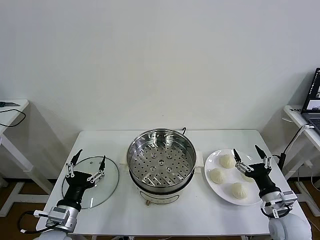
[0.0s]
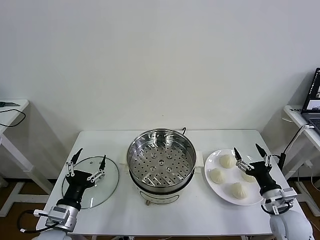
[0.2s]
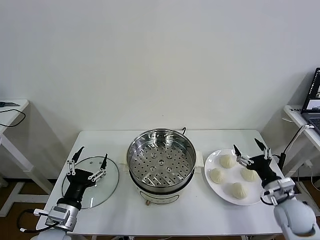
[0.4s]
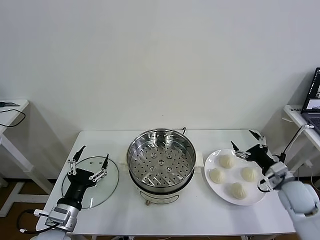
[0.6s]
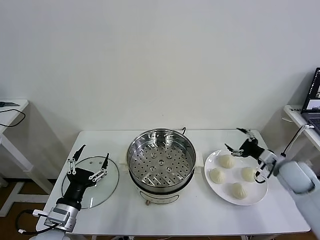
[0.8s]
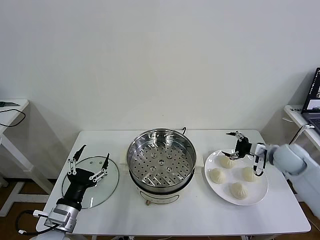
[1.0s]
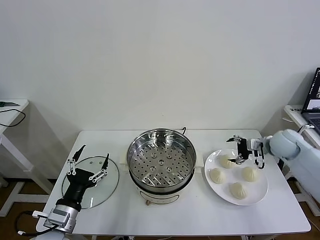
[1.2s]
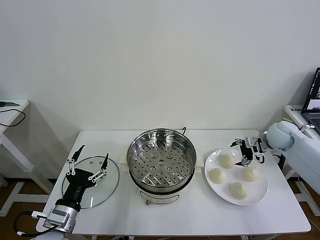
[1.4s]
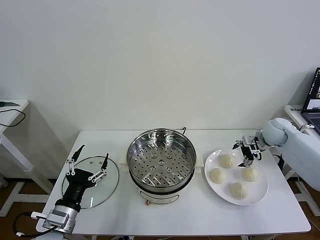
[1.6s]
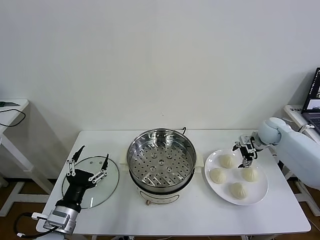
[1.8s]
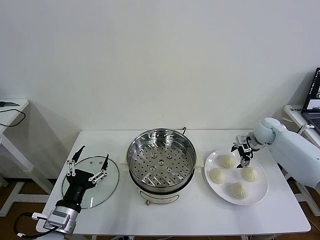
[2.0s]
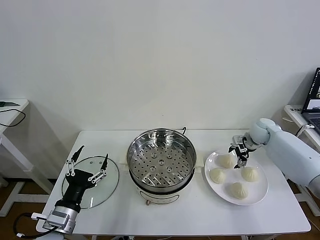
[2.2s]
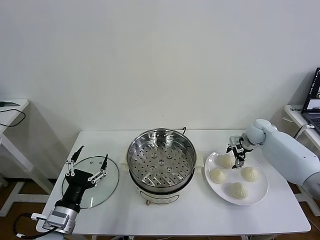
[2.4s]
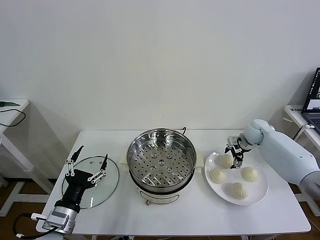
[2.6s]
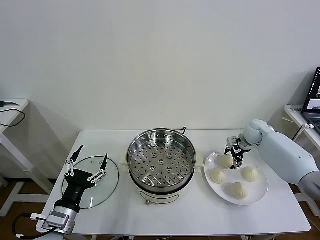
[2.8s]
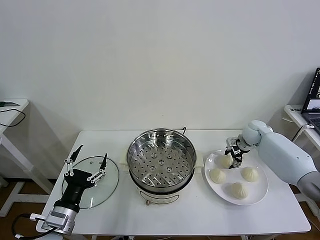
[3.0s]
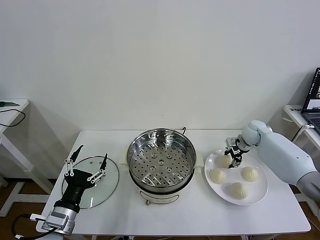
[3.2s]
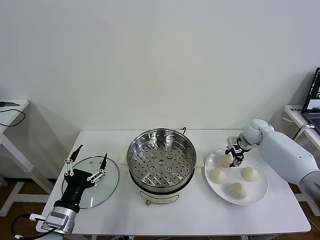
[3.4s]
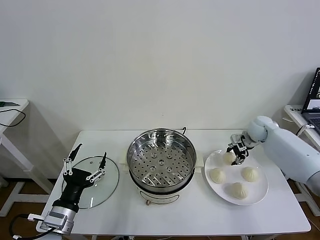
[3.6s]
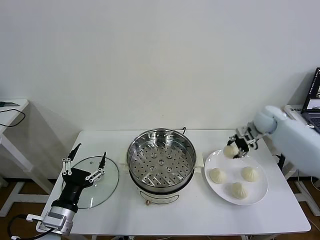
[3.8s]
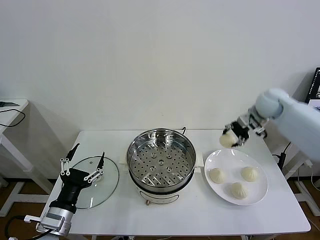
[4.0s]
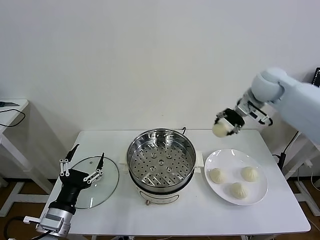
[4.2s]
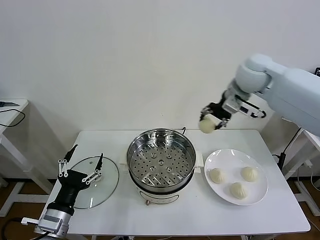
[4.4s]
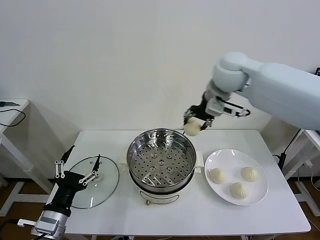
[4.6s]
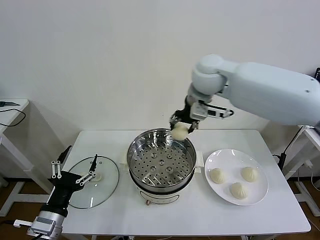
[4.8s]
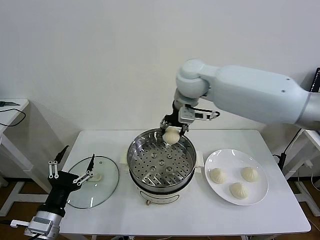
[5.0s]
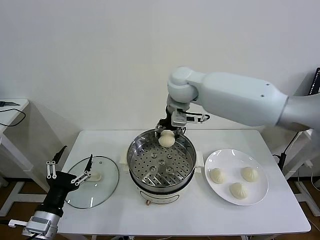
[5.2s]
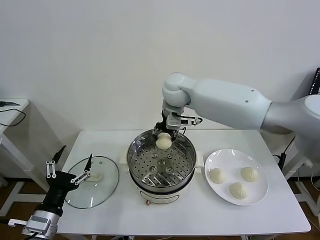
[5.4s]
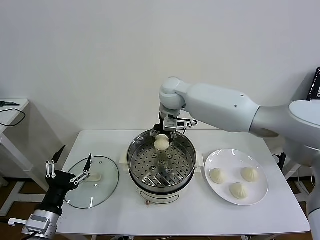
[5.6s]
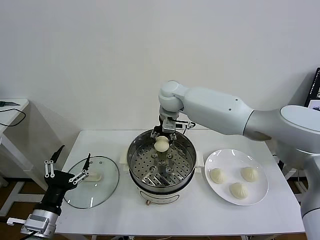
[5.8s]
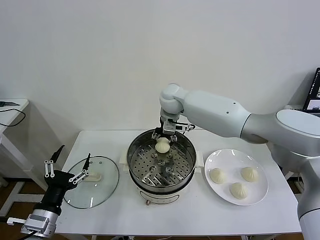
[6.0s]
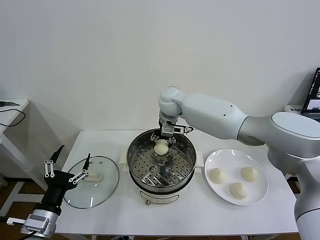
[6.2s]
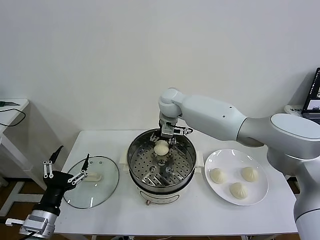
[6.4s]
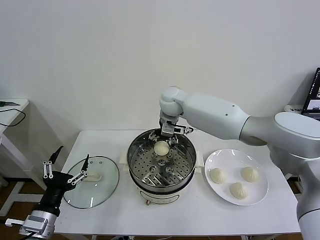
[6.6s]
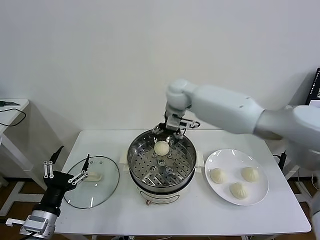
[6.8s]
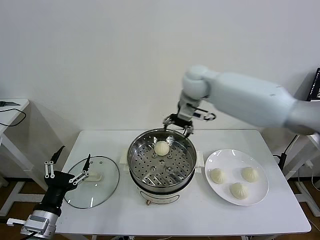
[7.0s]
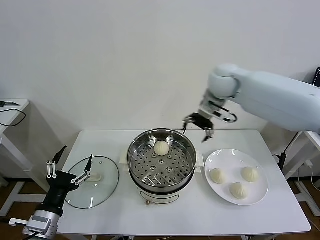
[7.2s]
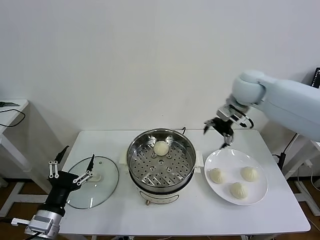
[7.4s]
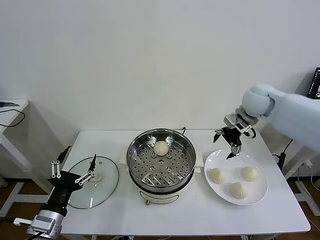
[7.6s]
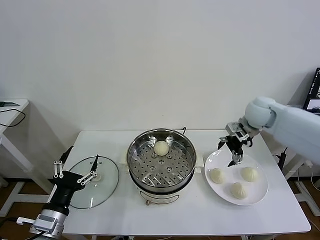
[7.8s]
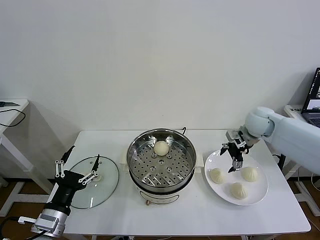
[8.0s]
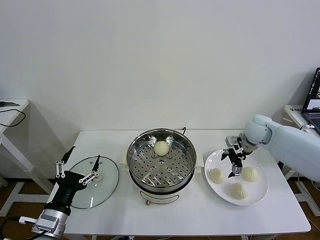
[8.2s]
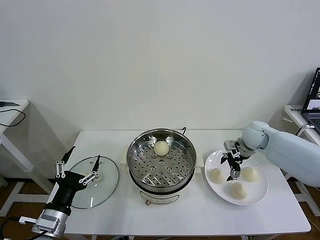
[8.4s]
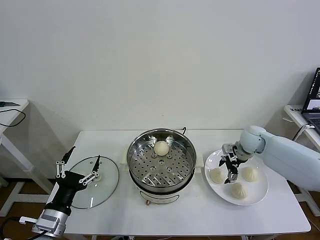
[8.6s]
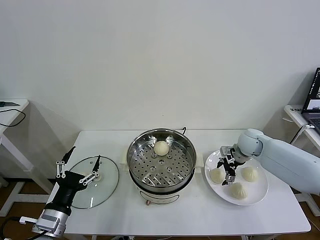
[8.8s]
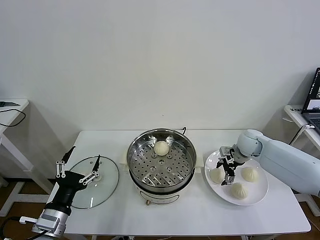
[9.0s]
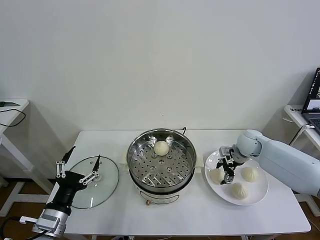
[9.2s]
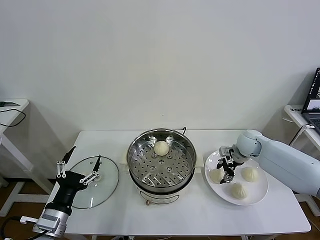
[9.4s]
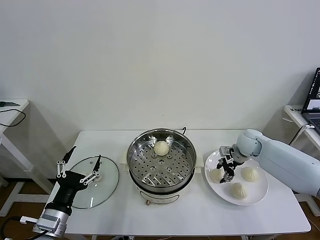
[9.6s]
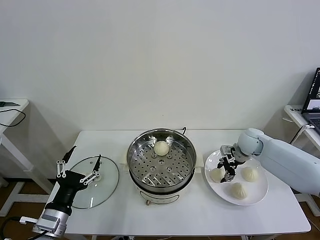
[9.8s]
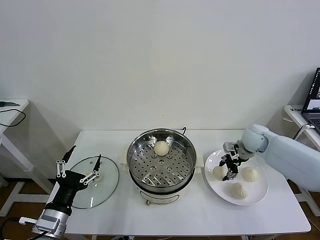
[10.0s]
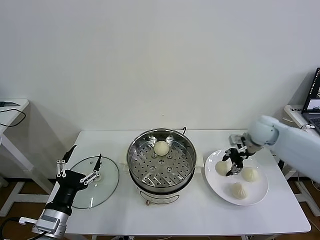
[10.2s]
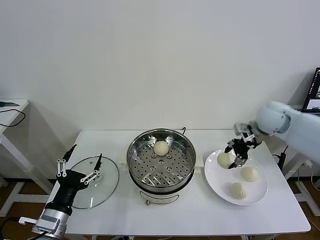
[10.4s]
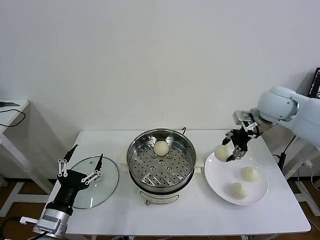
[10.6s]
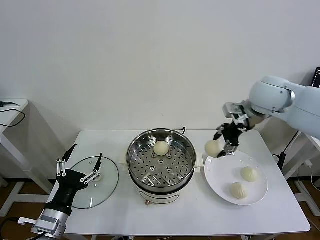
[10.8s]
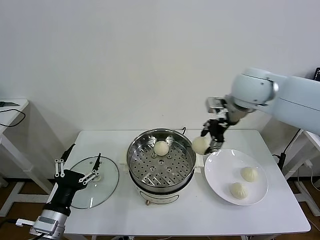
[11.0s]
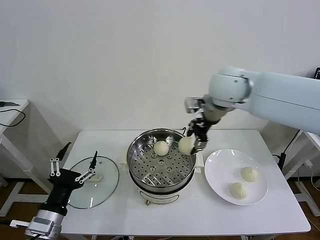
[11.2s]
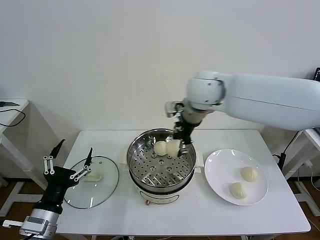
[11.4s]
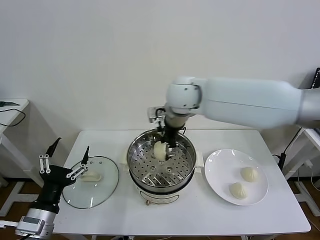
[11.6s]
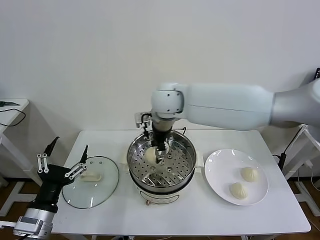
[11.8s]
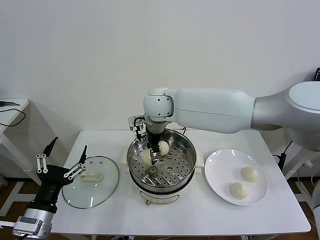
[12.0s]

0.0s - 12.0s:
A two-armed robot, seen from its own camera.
Task of the whole recording: take steamed baozi put them in steamer then cover it.
Step, 0.0s - 3.0s: Grasp the baozi in the plate with right gripper.
Step, 3.2s - 6.4s: Place the baozi on the steamer with right gripper.
Step, 6.8s - 9.6s: Grasp the baozi in the plate with right gripper.
1.6s - 3.0s: The right gripper shifts approximately 5 cm downward, and closes.
3.0s - 4.4s: The right gripper goes some 35 cm upward and to the left.
4.4s - 6.0s: The right gripper shifts about 20 cm to the left and downward.
6.0s - 7.6s: The right gripper travels to the right by approximately 25 cm, and opens.
7.6s - 9.0s: The right gripper moves downward, approximately 15 cm.
9.0s - 10.4s: The right gripper goes some 15 cm upward, and closes its fingers.
10.4s - 12.0s: The right gripper goes about 35 cm to the left.

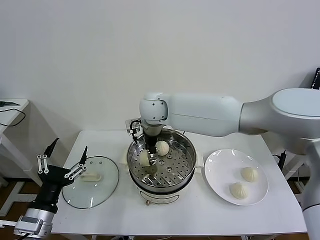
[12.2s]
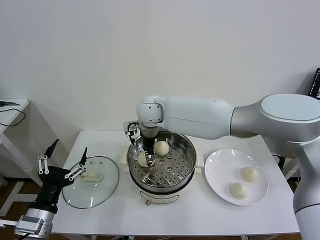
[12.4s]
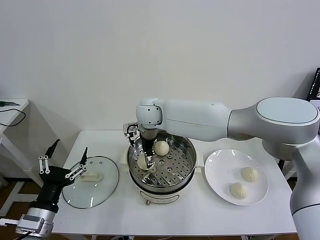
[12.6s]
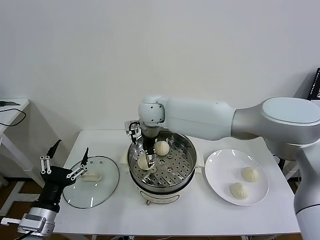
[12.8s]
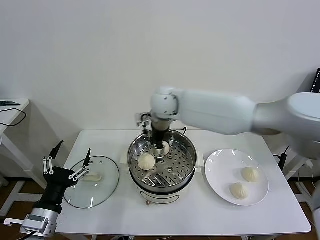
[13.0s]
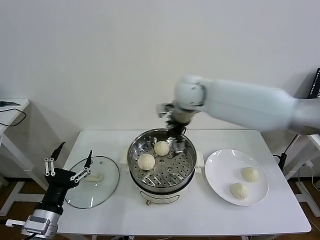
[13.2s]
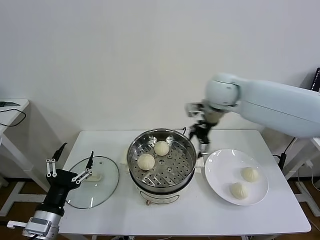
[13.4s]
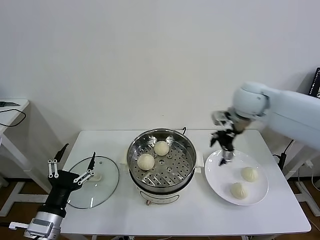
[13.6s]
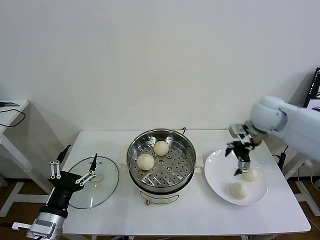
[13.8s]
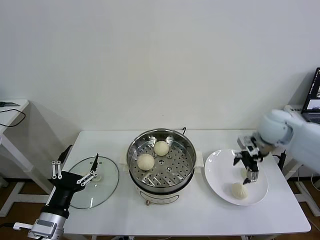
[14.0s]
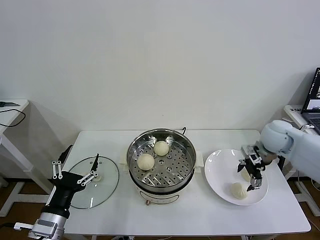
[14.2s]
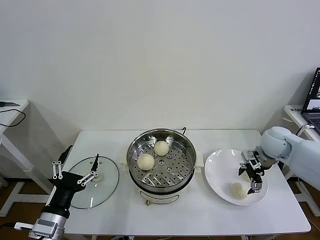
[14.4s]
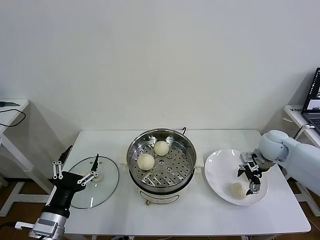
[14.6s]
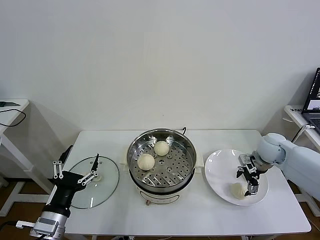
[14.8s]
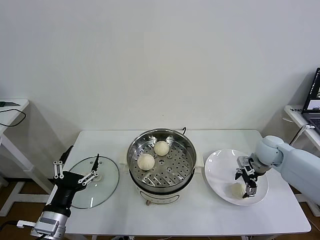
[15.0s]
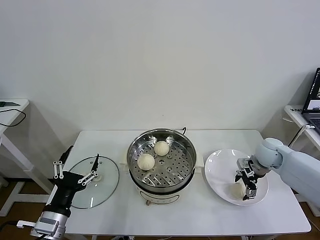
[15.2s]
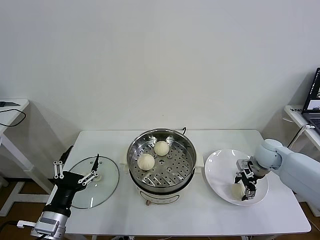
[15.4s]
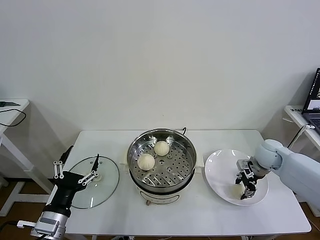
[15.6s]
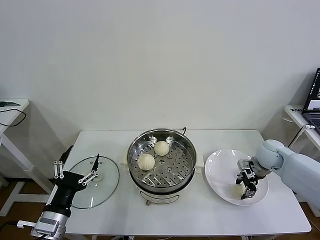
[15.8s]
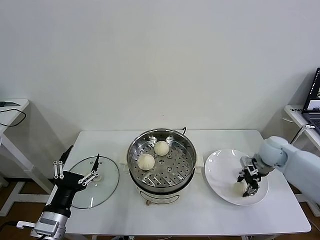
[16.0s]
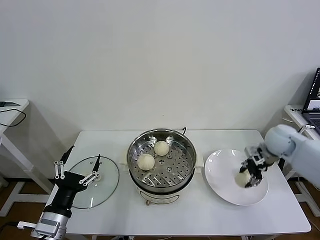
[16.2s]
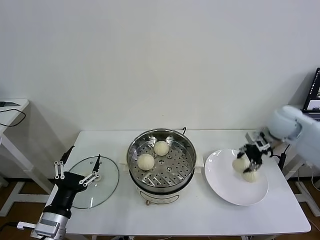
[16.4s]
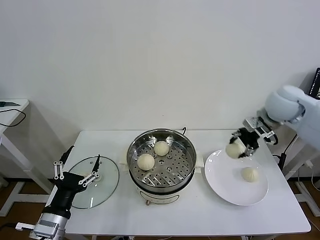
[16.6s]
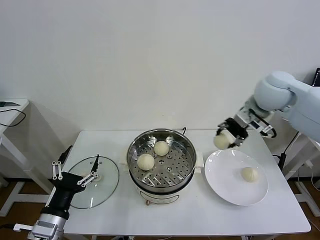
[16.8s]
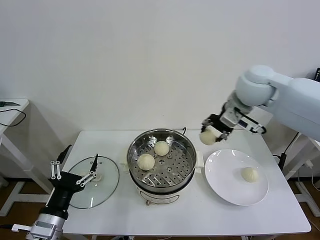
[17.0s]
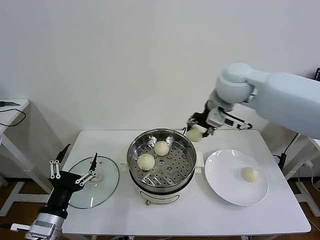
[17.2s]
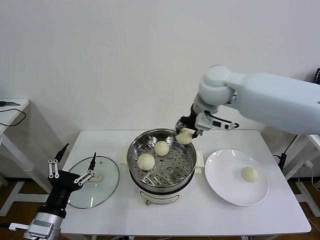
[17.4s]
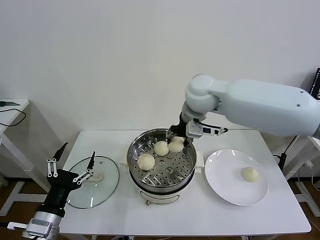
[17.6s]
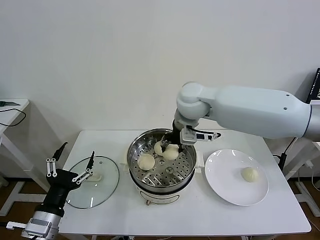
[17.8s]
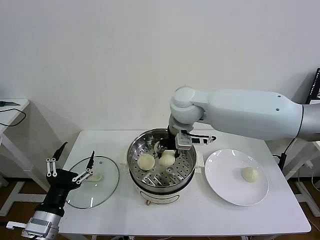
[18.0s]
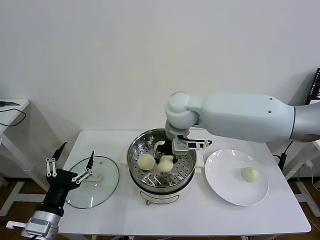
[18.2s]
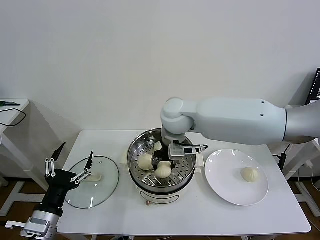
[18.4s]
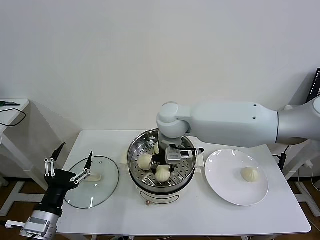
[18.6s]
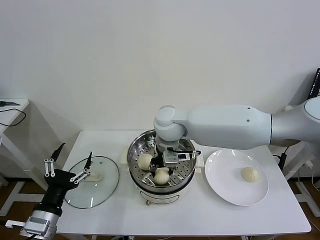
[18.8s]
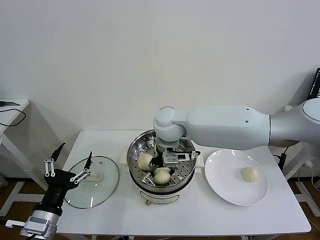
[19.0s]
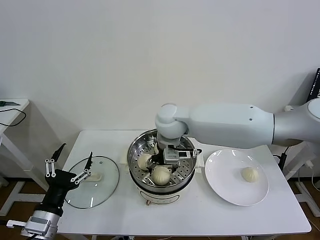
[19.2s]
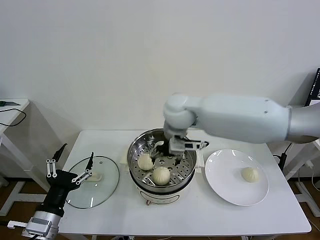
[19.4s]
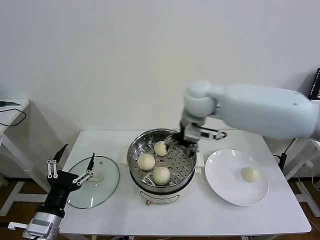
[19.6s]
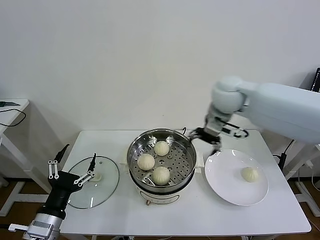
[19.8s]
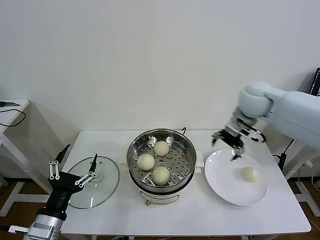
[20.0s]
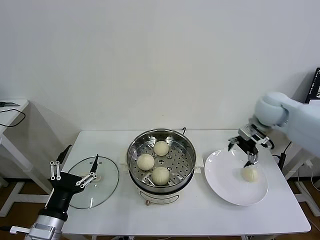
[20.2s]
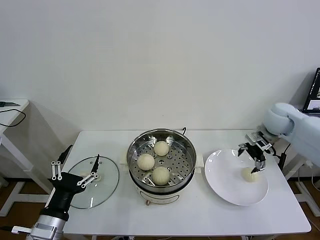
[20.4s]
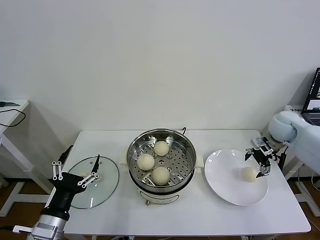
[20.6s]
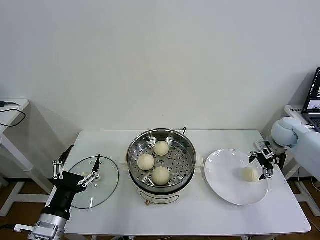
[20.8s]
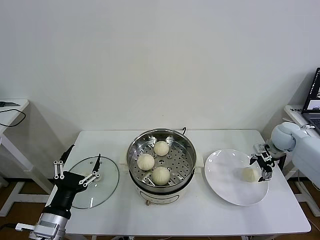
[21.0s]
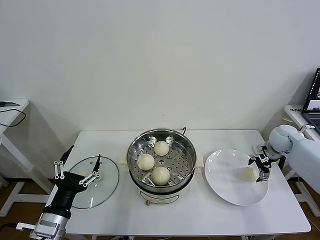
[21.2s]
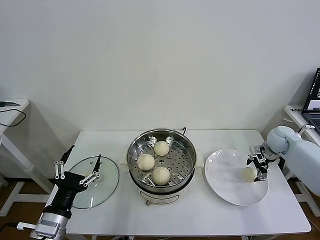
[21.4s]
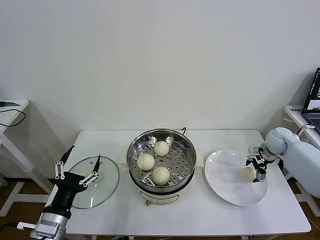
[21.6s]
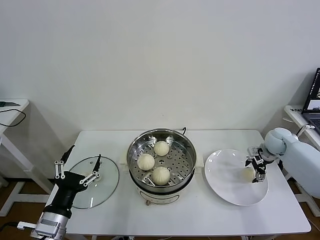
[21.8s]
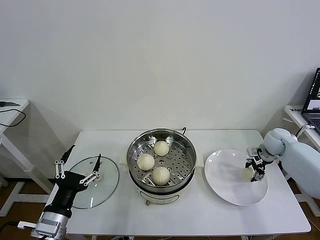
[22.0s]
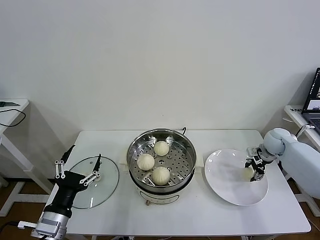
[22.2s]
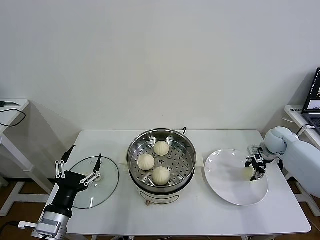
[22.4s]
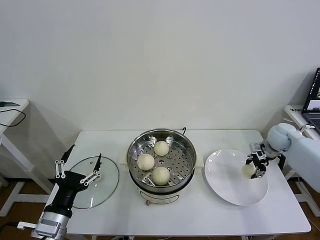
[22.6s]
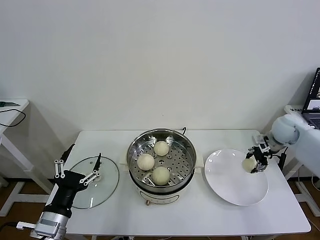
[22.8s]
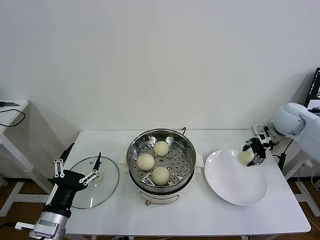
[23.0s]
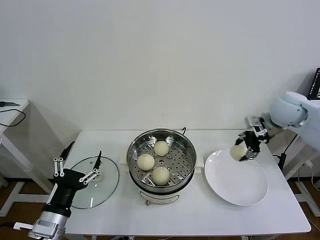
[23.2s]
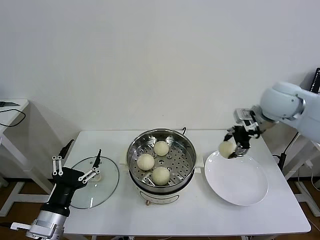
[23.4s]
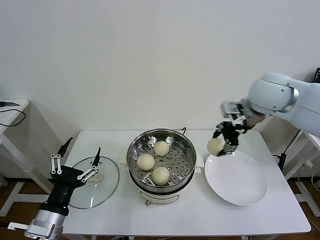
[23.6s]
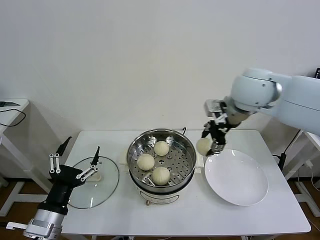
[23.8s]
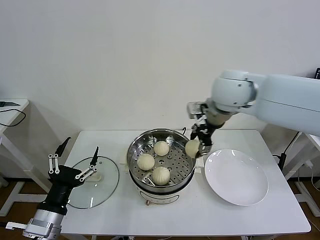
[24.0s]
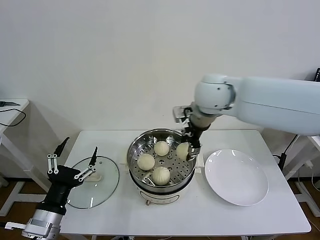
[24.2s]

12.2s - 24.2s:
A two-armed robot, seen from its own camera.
Task of the whole recording: take steamed baozi put them in steamer then cover it.
Step, 13.0s - 15.8s: Grasp the baozi in the plate with right gripper.
Step, 16.0s - 19.2s: Place the baozi on the steamer with right gripper.
Step, 19.4s - 22.2s: Grasp the baozi in the plate with right gripper.
12.2s - 13.8s: The right gripper travels to the right by roughly 35 cm, and opens.
13.8s - 15.2s: The right gripper is displaced downward by approximately 15 cm.
15.2s - 16.6s: The right gripper goes roughly 20 cm upward, and closes.
16.6s - 18.2s: The right gripper is displaced to the left by roughly 30 cm.
18.2s - 19.8s: The right gripper shifts approximately 15 cm to the right, and opens.
19.8s - 21.2s: The right gripper heads to the right and downward, covering approximately 30 cm.
21.2s - 22.6s: The right gripper closes.
22.6s - 24.2s: The right gripper is displaced to the left and upward by some 40 cm.
